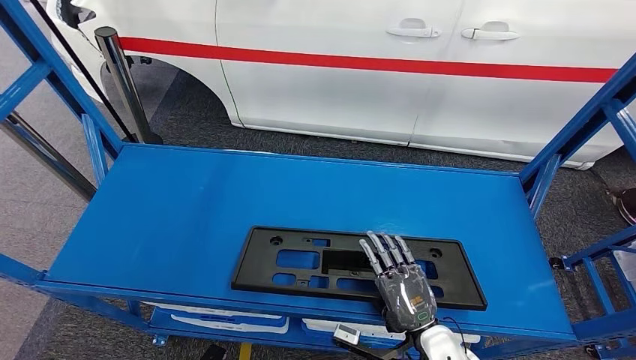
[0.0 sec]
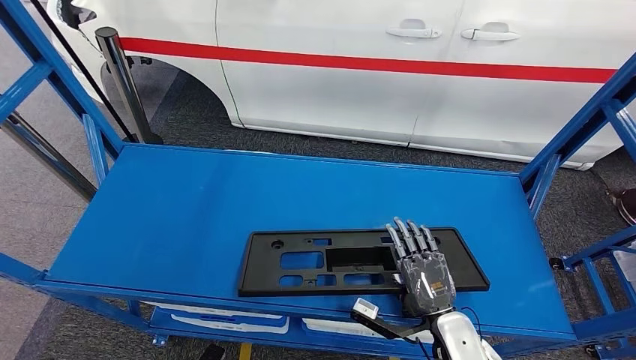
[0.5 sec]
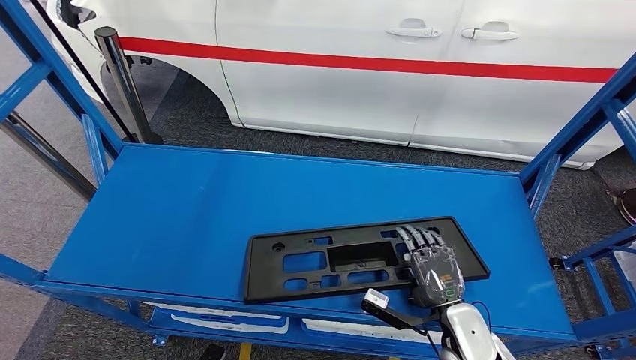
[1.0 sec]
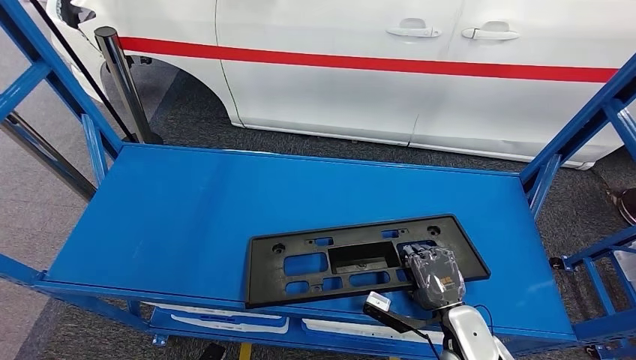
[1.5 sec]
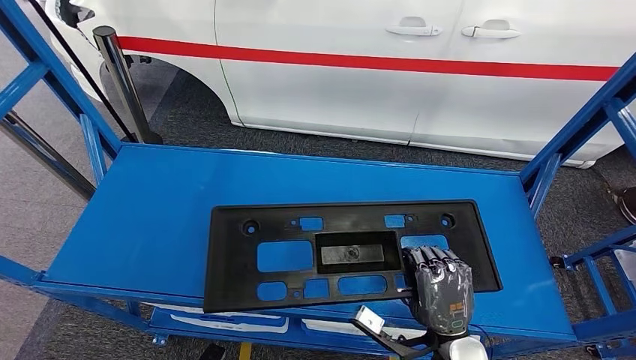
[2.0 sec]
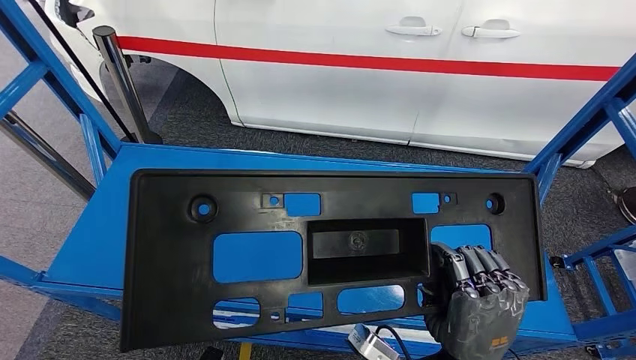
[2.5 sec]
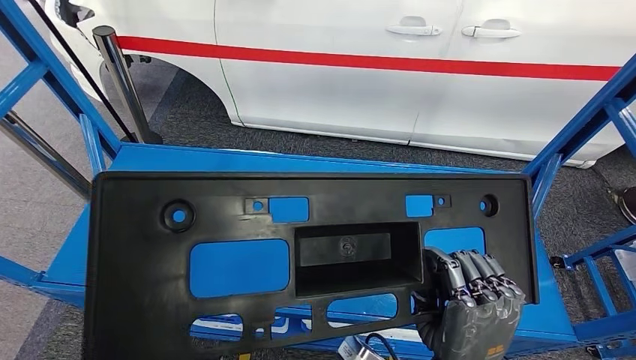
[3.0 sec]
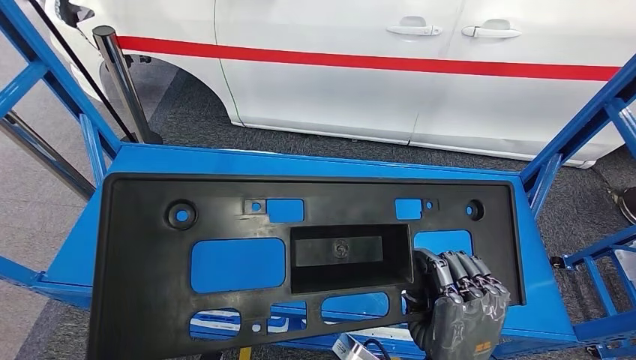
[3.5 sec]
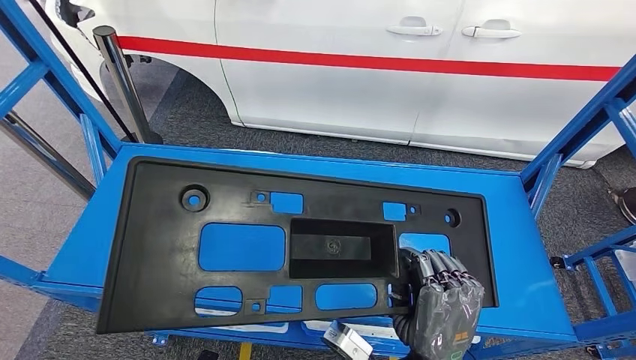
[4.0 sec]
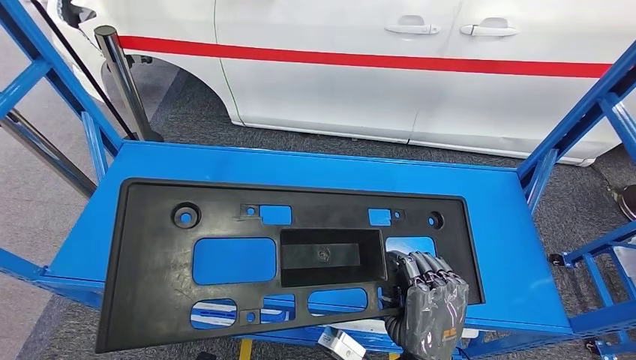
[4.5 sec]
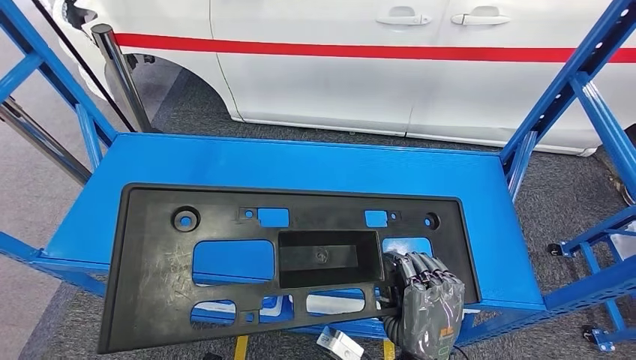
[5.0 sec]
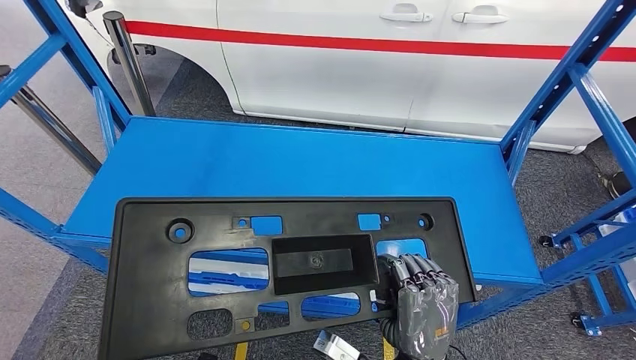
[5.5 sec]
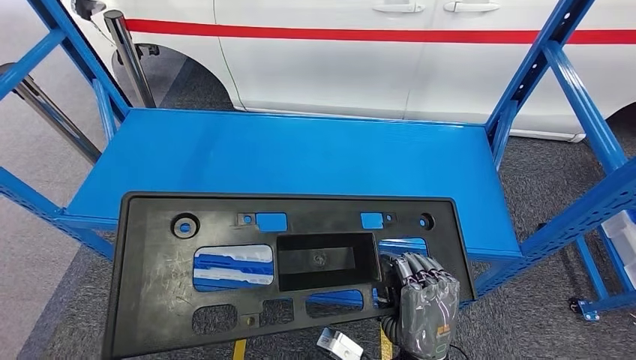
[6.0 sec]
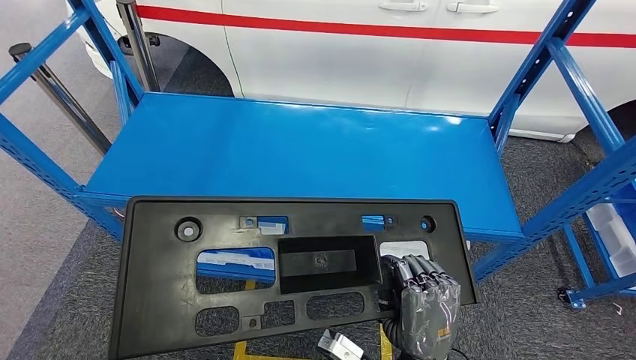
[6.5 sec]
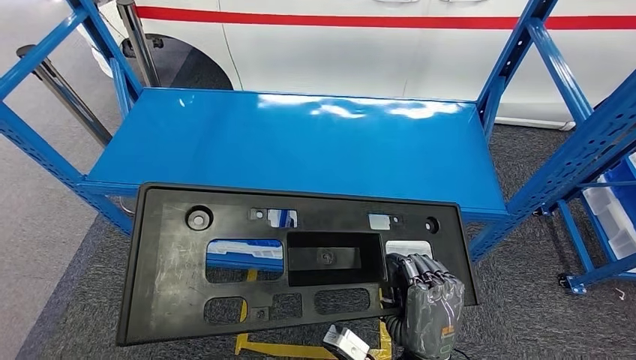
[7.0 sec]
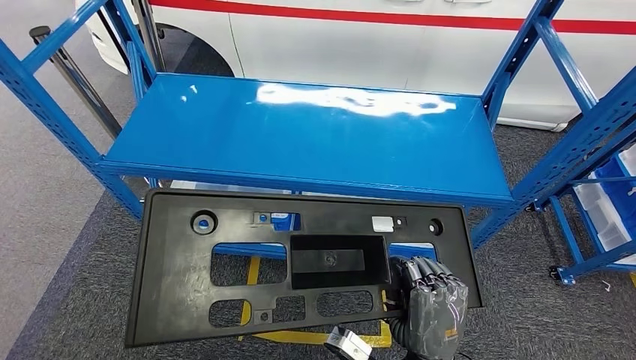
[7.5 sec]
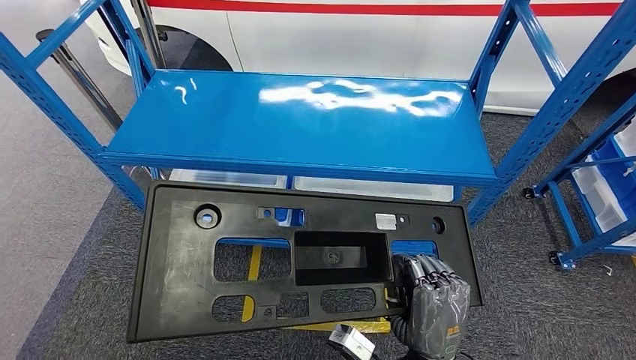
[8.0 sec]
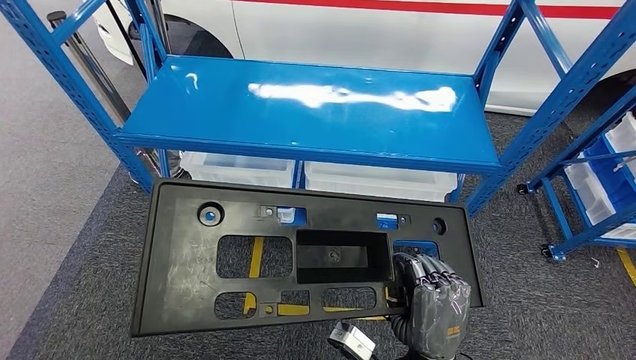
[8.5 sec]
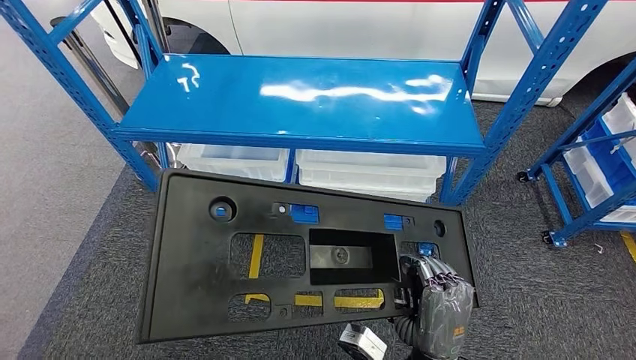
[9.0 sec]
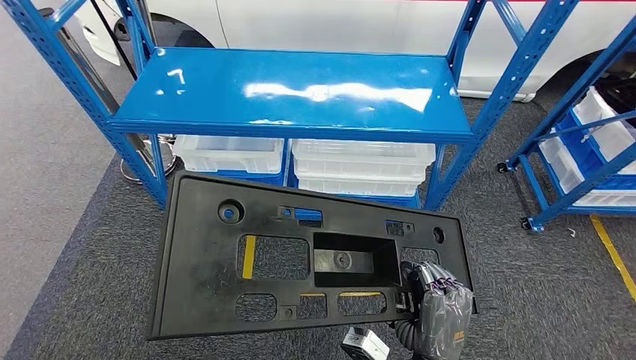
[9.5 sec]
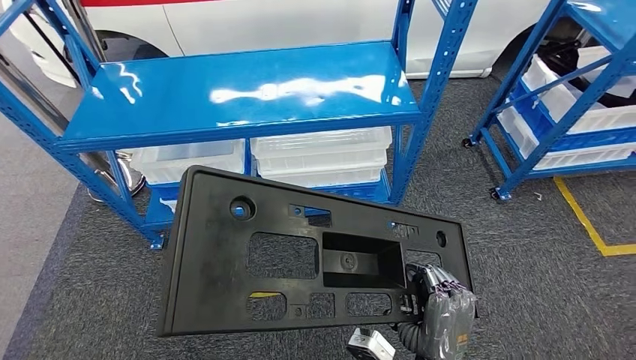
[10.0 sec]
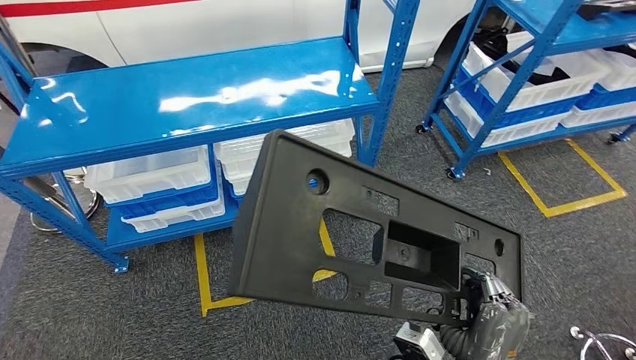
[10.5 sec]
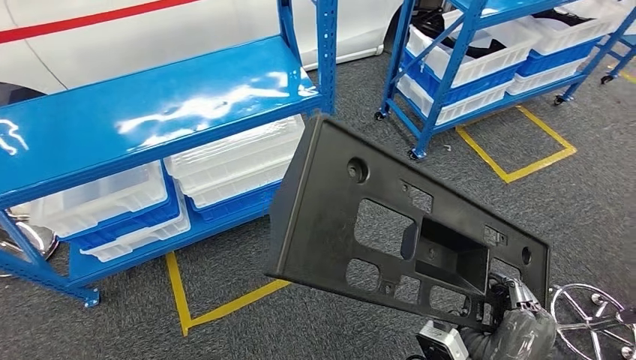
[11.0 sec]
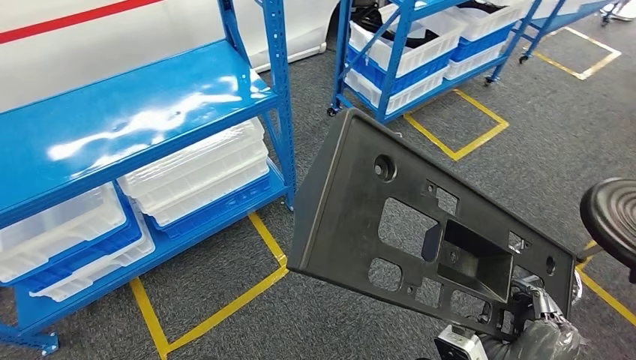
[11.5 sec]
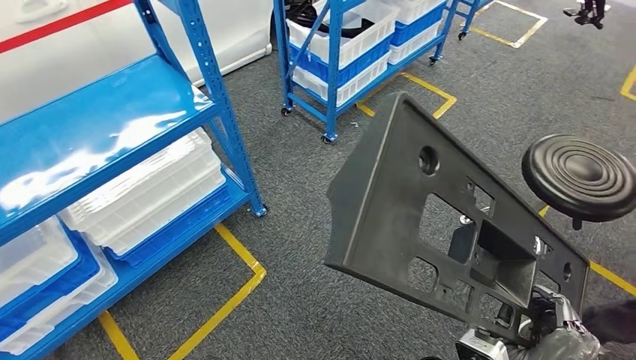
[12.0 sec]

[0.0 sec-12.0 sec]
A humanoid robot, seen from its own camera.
Step, 0.0 sec to 2.0 sec: Pick up the large parts from the shelf.

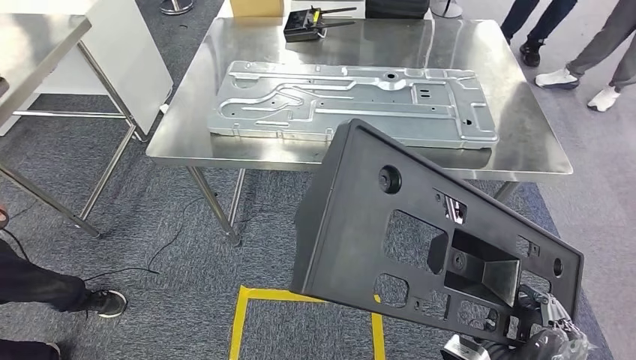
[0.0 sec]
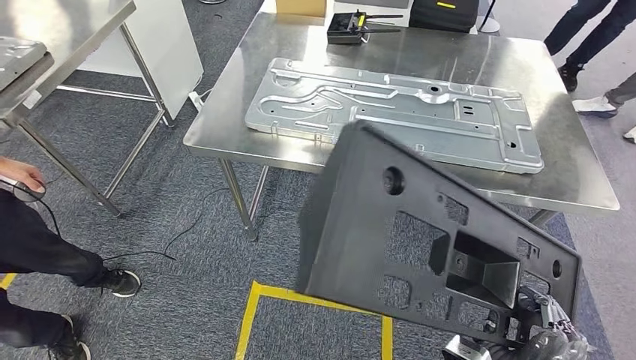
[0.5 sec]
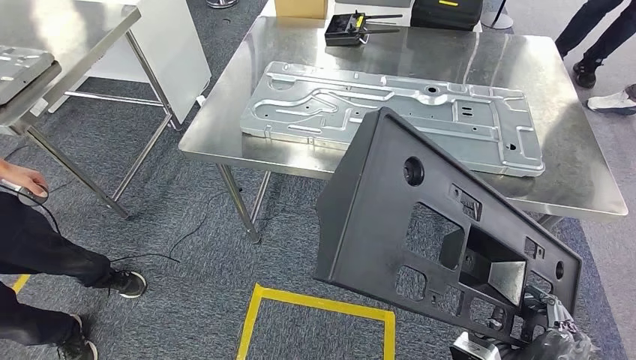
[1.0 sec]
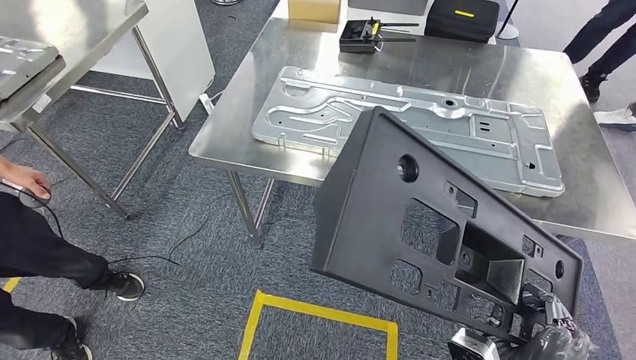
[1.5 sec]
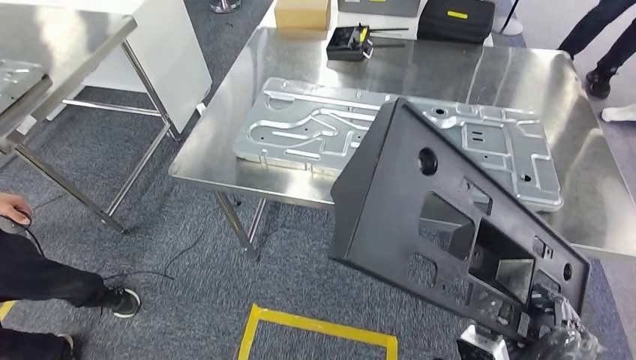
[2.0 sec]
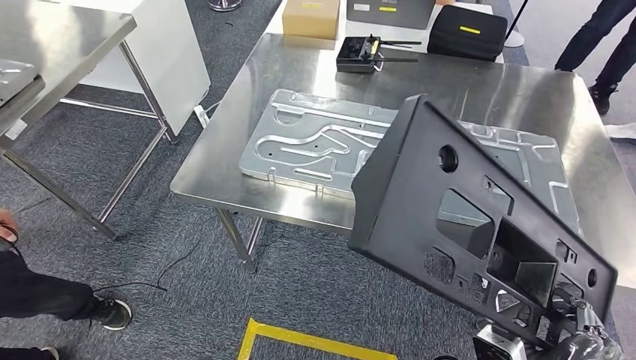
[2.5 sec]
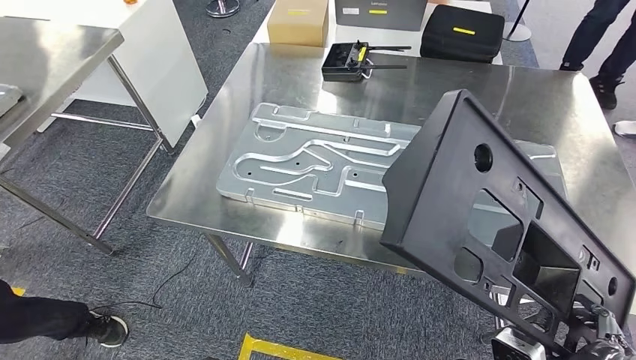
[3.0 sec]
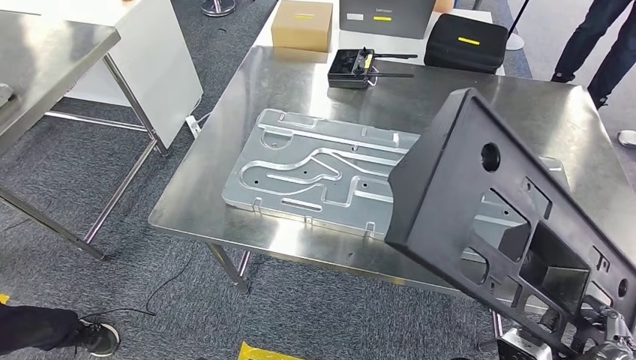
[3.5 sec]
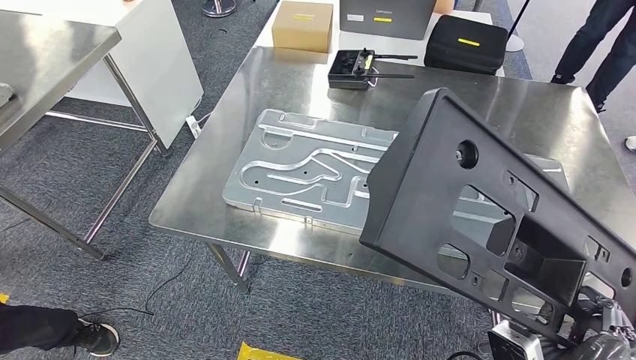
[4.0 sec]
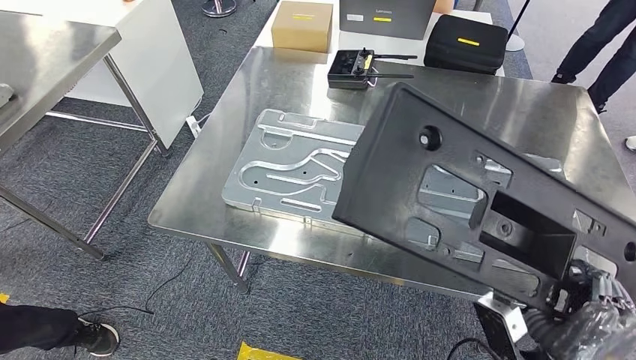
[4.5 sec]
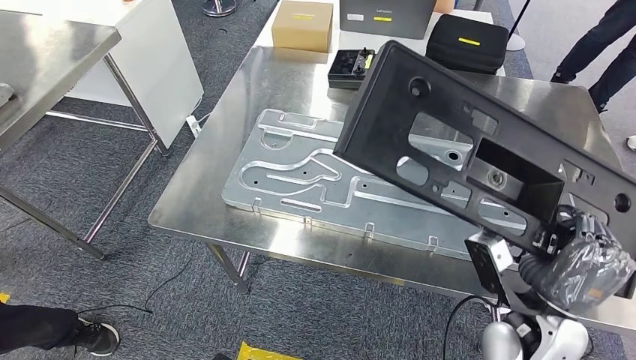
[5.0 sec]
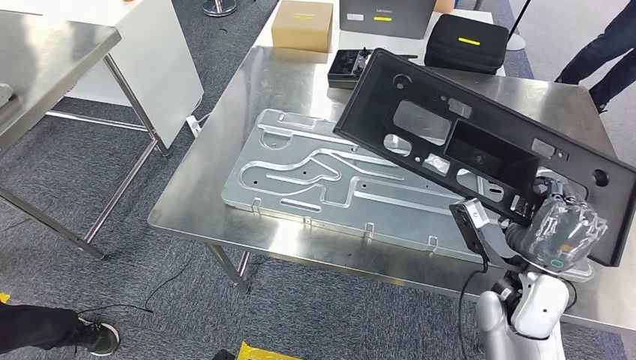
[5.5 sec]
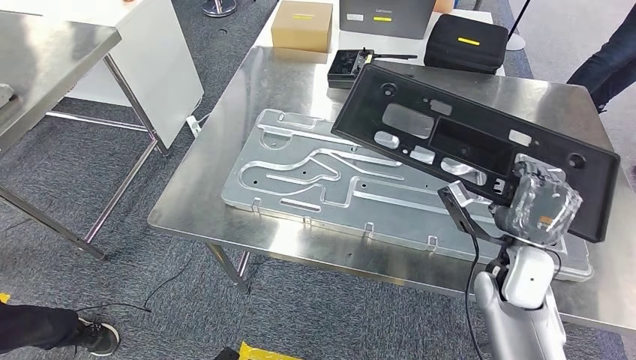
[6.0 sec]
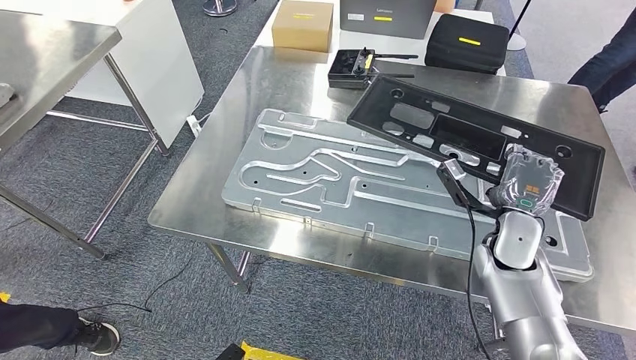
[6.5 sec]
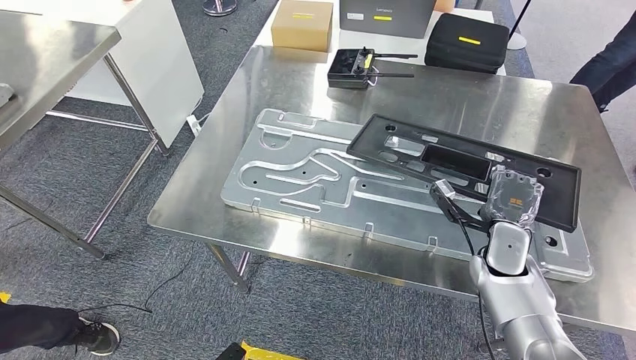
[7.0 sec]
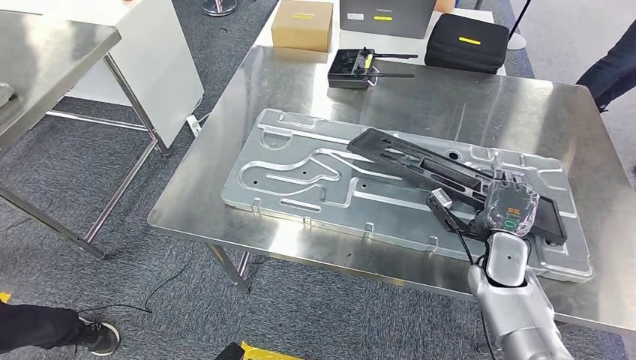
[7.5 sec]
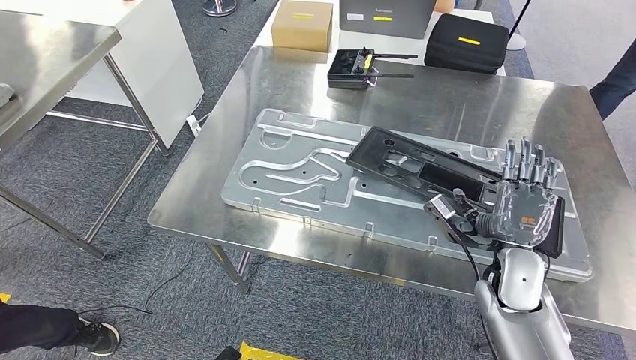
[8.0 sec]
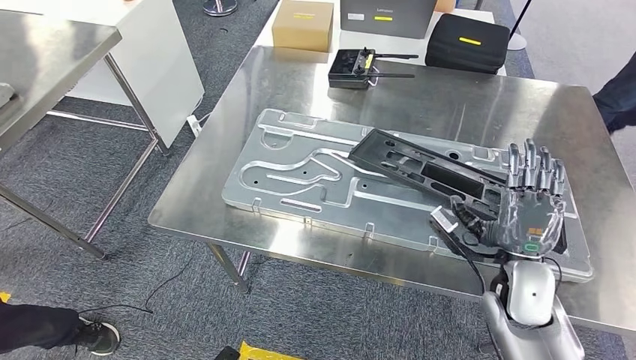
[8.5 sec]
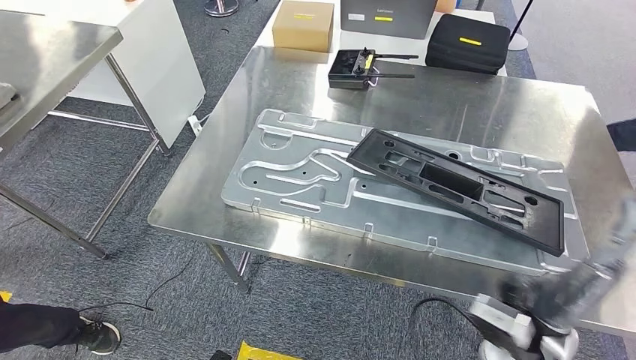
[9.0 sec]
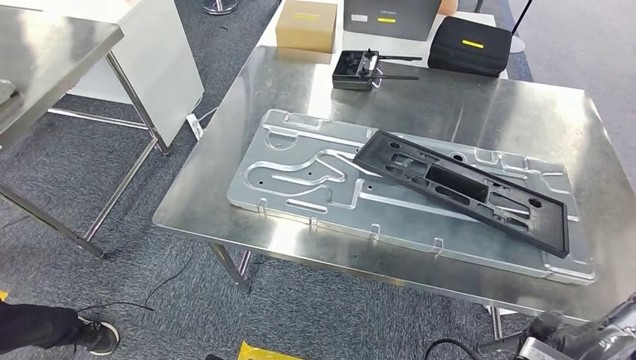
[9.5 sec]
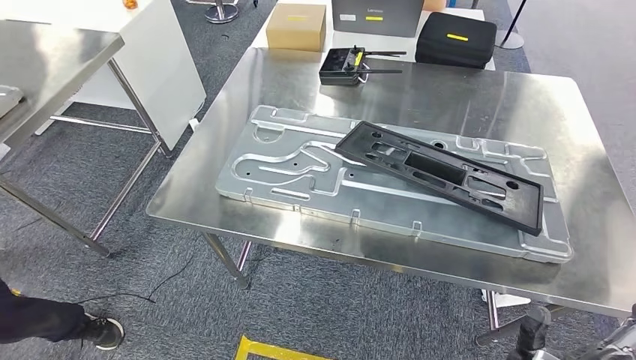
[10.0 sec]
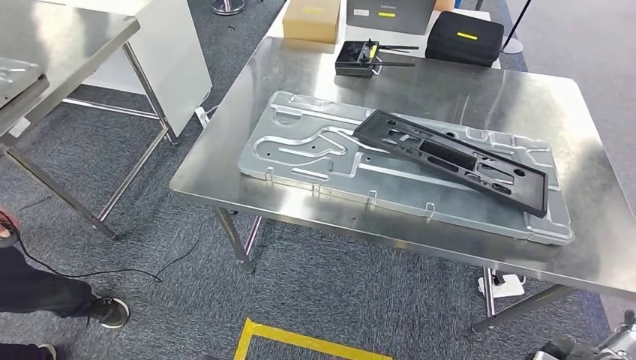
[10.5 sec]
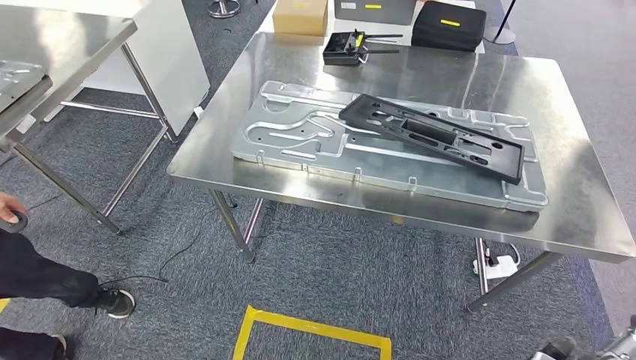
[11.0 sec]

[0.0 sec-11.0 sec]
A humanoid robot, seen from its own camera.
Step, 0.0 sec to 2.0 sec: Move the large parts to the workbench.
7.5 sec to 9.0 sec: The right hand shifts some 15 cm backward and upward.
